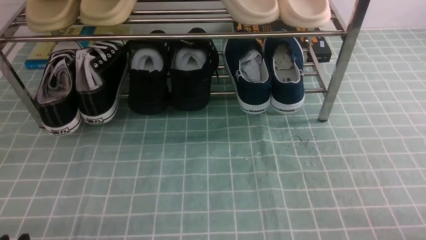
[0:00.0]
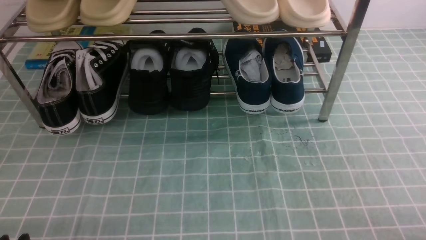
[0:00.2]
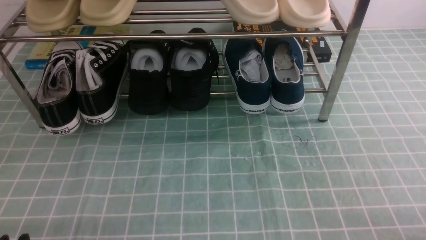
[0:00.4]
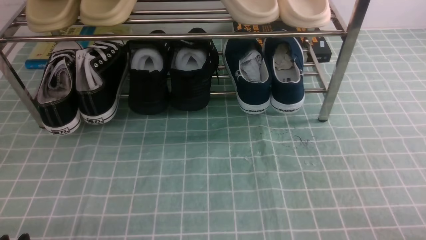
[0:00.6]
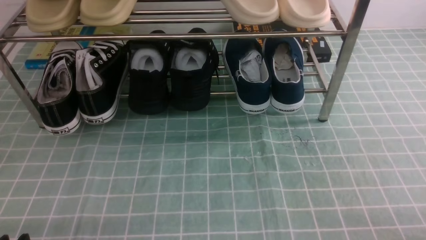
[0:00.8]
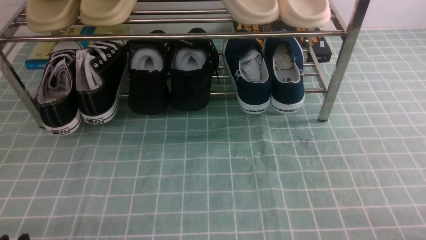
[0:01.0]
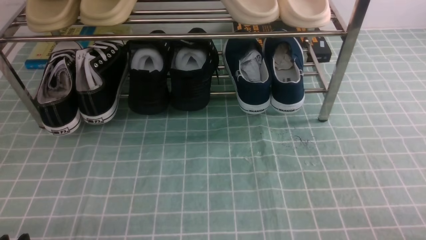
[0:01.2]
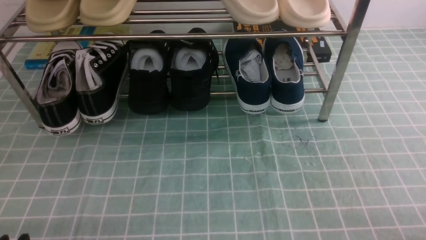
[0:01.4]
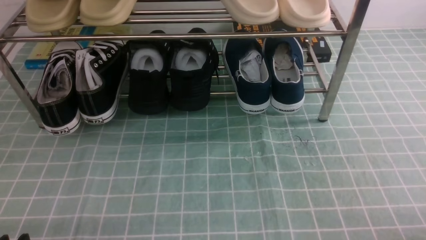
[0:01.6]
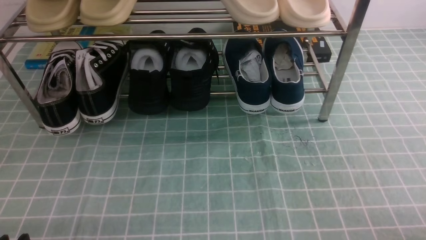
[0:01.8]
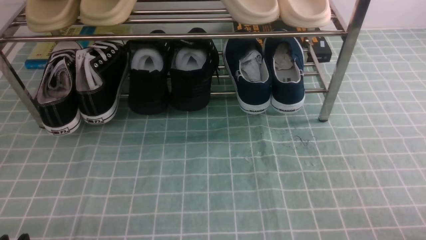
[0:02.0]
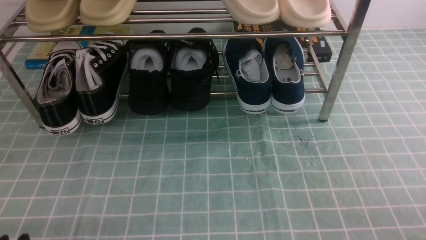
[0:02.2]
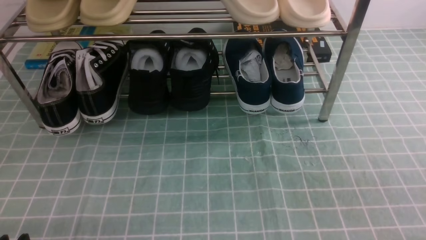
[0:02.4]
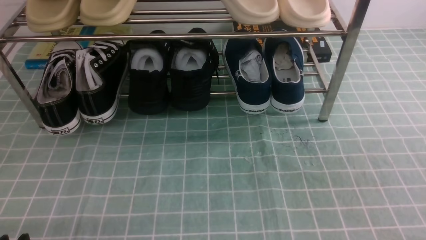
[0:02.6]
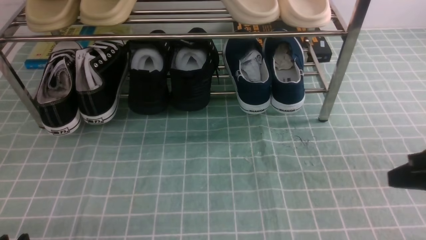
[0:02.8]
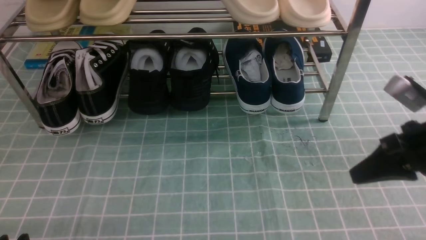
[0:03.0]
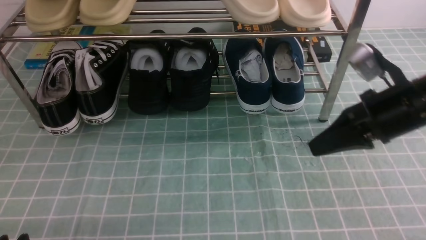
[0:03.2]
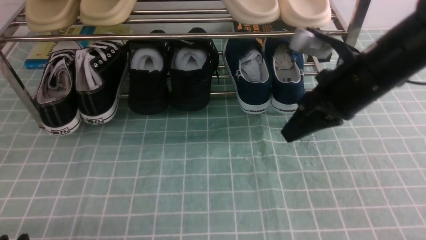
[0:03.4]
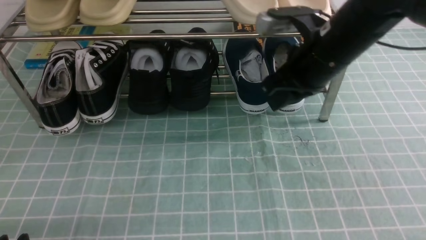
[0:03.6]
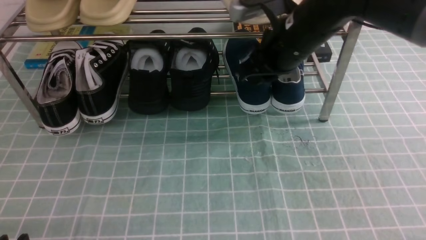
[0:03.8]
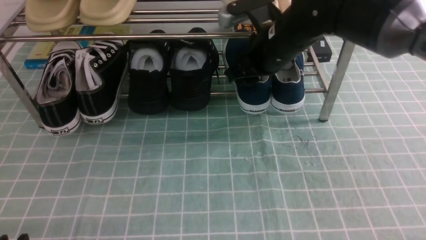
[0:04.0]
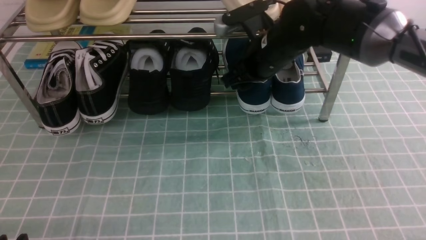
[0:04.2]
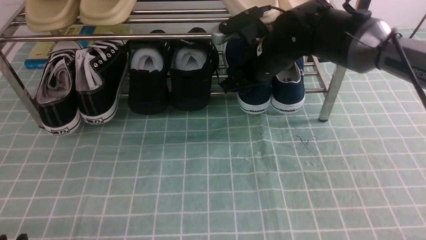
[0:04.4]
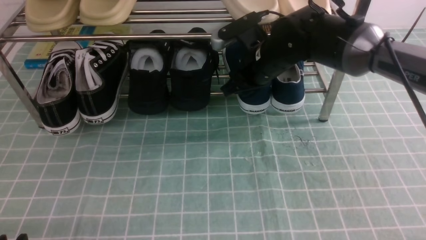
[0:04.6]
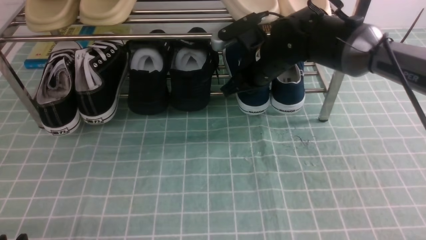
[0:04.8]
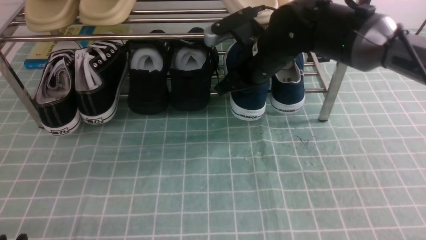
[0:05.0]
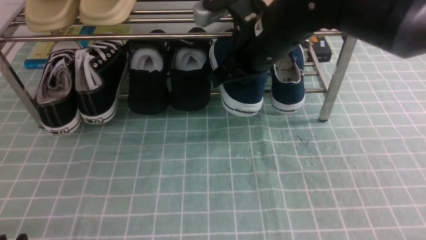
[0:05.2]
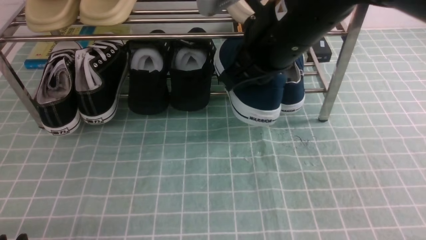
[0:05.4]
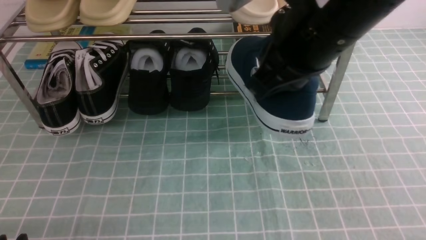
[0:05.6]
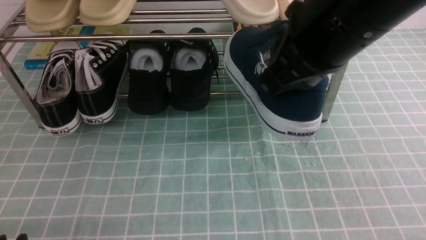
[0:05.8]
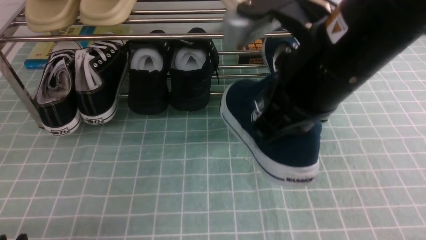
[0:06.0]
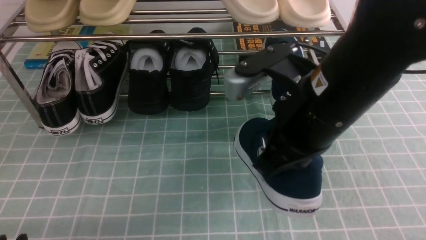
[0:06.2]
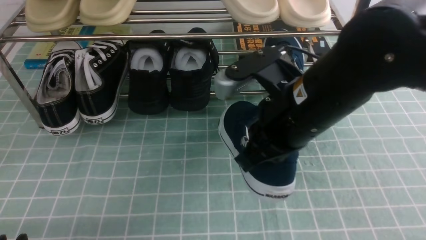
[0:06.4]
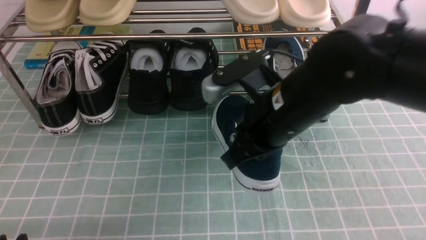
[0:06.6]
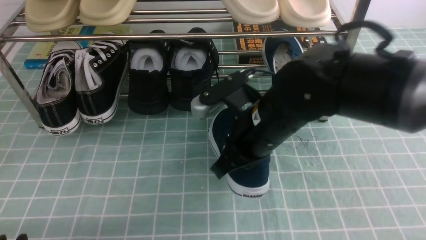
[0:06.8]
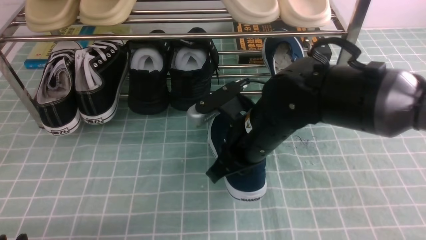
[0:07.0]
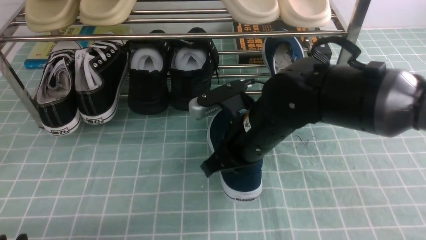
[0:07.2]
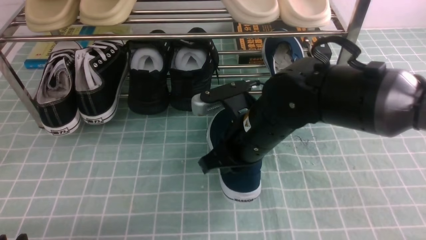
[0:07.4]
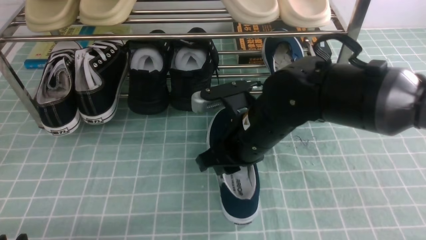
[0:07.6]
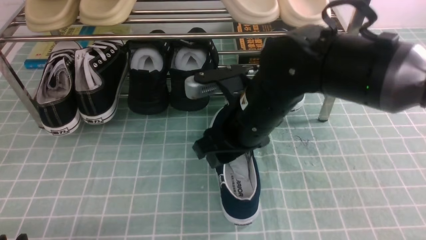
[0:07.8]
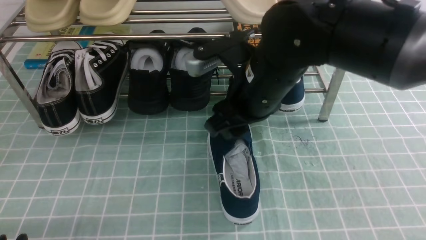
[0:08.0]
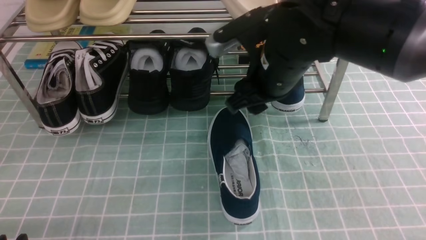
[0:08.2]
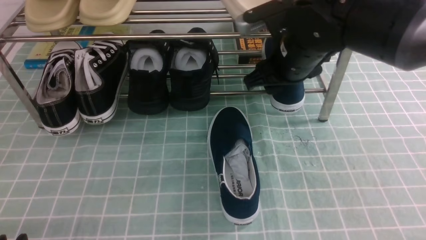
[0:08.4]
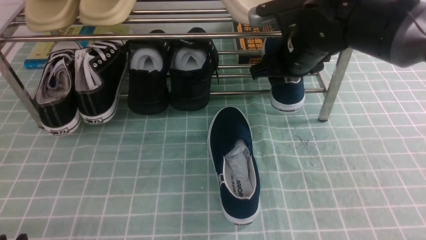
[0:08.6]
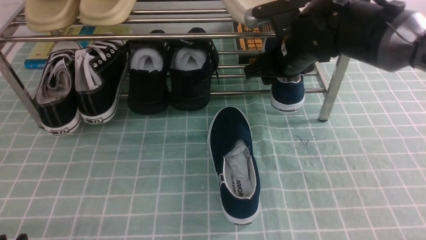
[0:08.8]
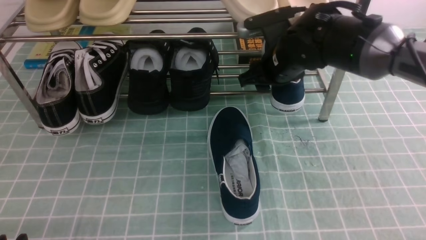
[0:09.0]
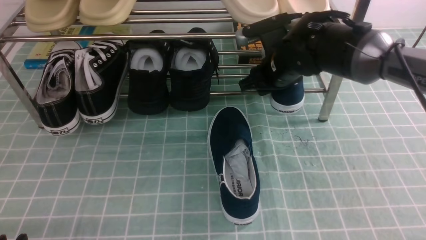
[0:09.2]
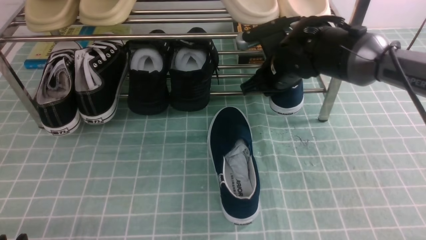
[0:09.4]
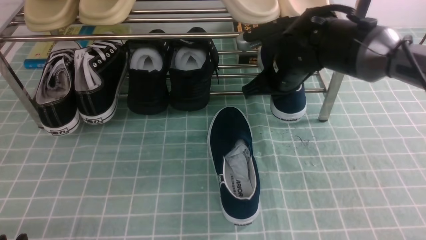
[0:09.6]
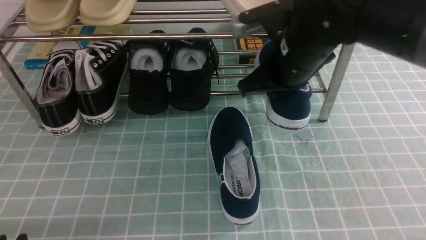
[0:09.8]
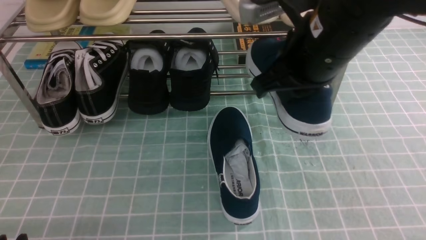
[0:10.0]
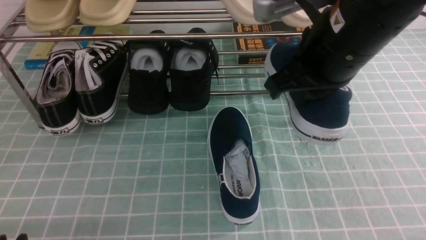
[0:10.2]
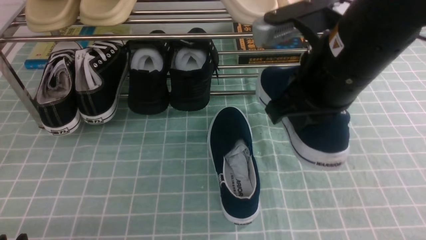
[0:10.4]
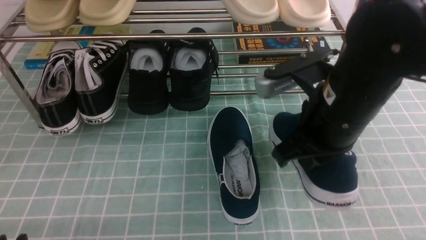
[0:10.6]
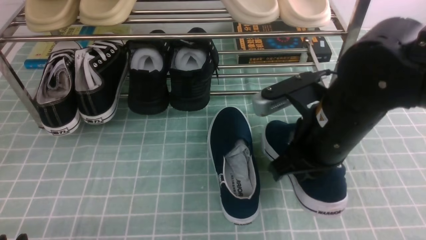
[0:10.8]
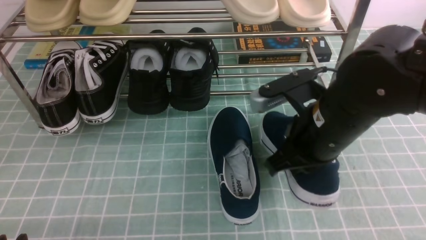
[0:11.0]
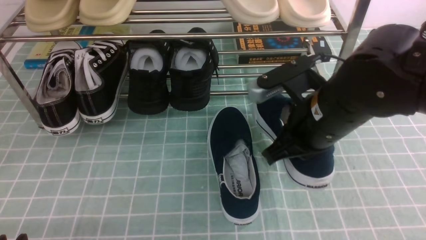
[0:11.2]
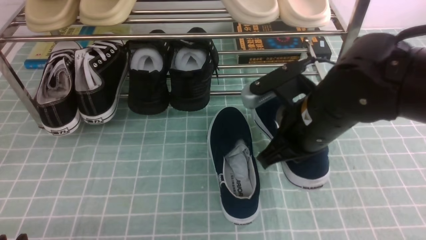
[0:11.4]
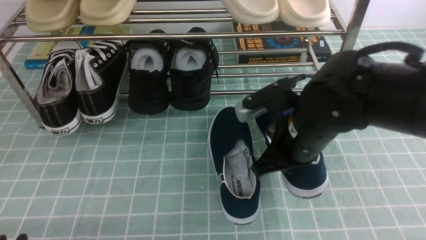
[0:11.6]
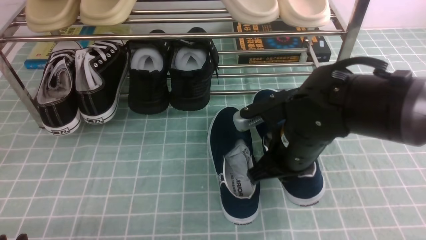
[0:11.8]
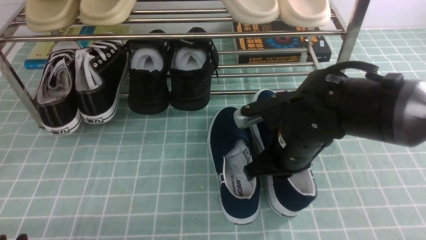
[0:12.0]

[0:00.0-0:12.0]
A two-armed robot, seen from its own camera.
Step, 0:00.0 to 0:04.6: use the right arm to clamp a shoe on the right side of the shoe rack.
Step, 0:04.8 to 0:07.8: use the right arm to take out the clamped shoe from the shoe rack and put it down.
Step, 0:08.0 to 0:09.4: use the right arm to clamp a shoe on the right side of the shoe rack.
0:01.6 to 0:03.0: The right gripper moves forward and upward, approximately 20 cm, and closes.
0:03.0 to 0:04.4: The right gripper goes roughly 25 cm to the left and forward, and opens.
0:04.4 to 0:06.0: The right gripper goes about 25 cm backward and upward, and closes up.
0:06.0 to 0:07.6: The right gripper moves downward, forward and to the left, some 15 cm, and opens its fingers.
0:07.6 to 0:09.0: The right gripper moves forward and to the right, about 15 cm.
0:09.0 to 0:10.4: The right gripper is displaced backward and upward by approximately 20 cm, and closes up.
0:10.4 to 0:12.0: The right gripper travels downward by approximately 15 cm.

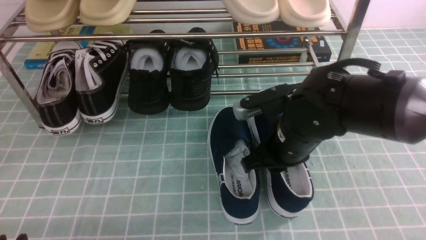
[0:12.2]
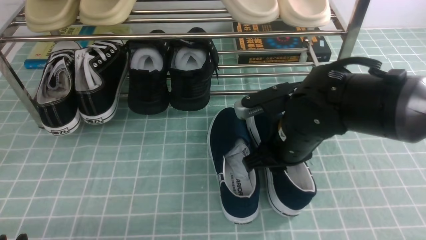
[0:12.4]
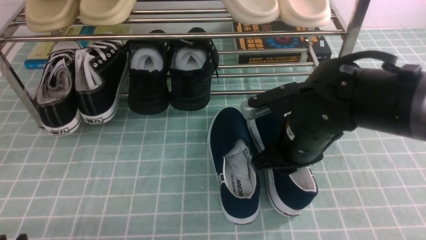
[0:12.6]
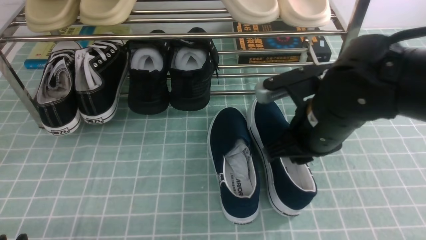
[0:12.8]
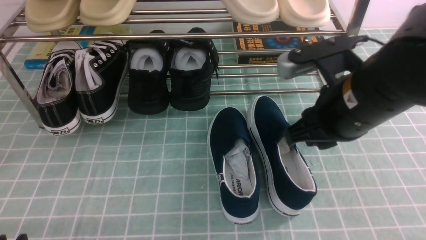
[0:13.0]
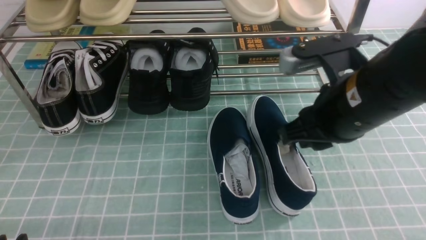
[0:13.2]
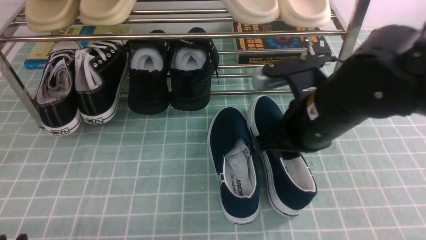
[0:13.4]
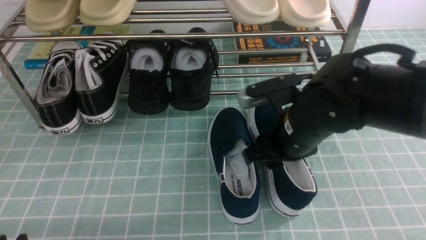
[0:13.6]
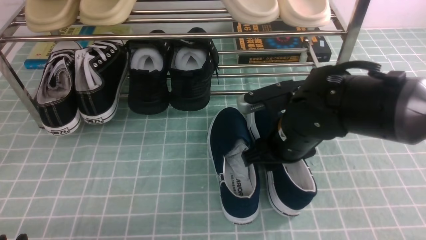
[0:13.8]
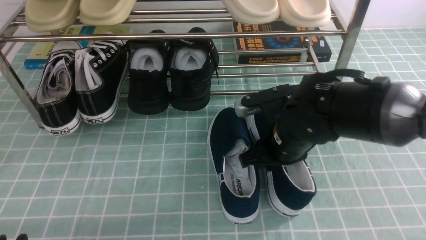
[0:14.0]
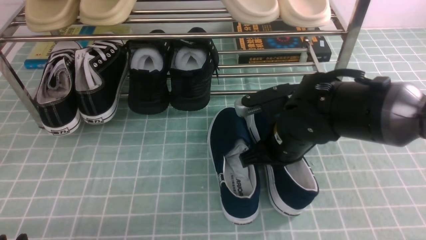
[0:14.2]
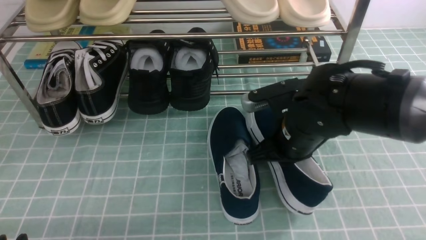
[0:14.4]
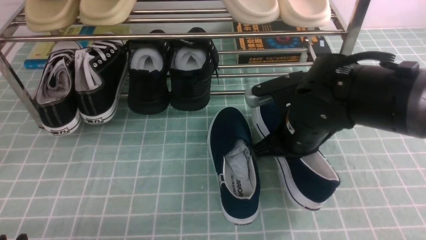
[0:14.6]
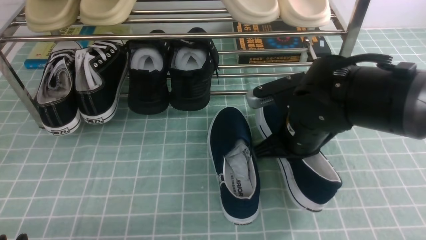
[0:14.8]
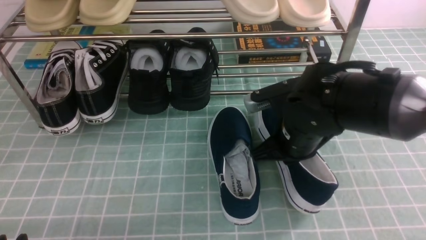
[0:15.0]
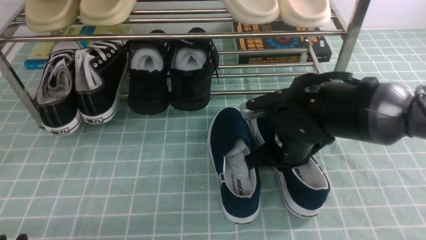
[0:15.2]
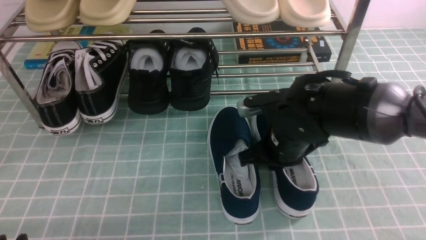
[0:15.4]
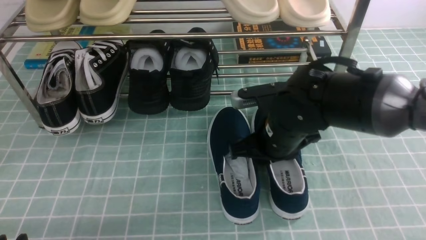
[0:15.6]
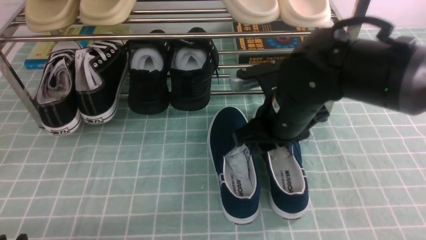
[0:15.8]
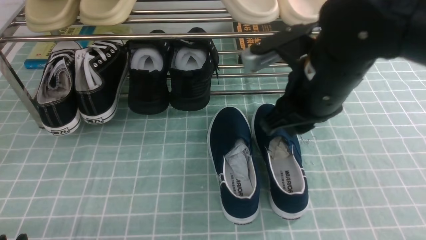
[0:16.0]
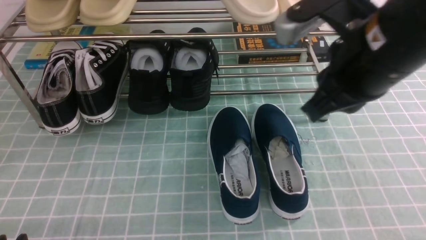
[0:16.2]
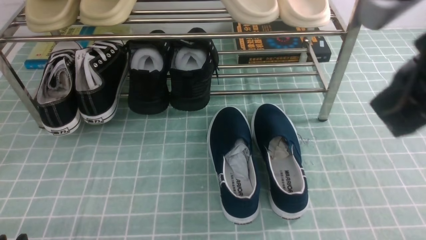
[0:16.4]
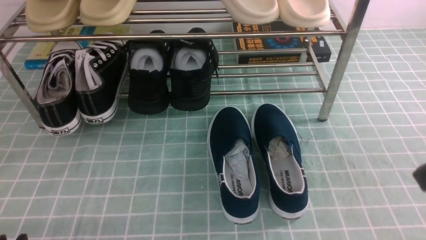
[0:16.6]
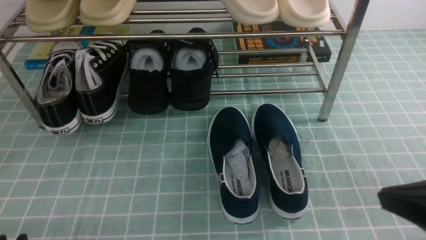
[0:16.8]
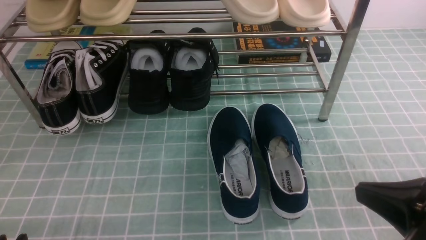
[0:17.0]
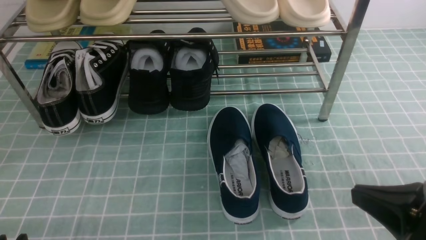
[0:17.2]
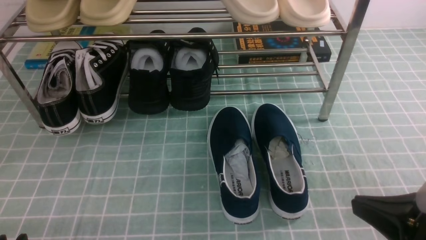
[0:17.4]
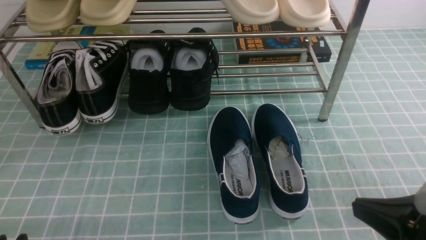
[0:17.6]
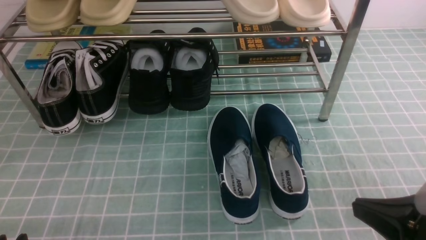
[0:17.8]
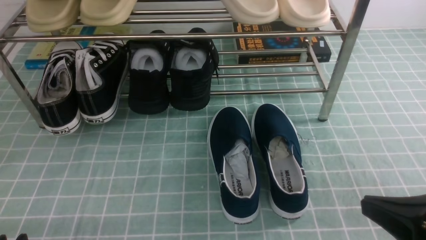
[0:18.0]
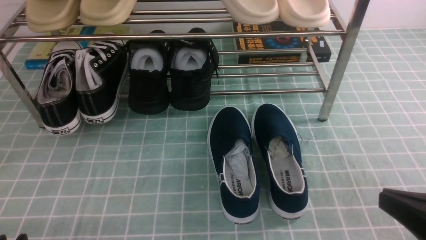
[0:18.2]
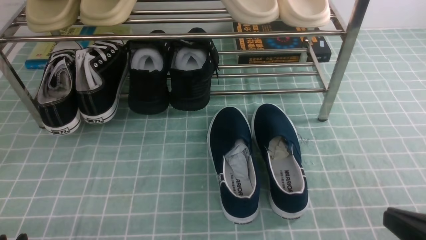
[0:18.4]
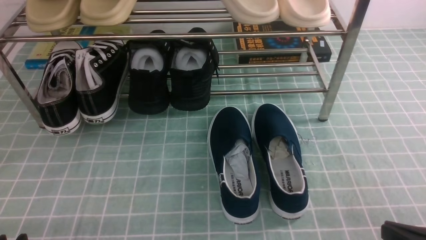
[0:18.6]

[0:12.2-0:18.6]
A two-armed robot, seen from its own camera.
Step, 0:12.2 to 0:15.8: use the right arm to take out the clamped shoe from the shoe rack and put it down.
0:12.2 to 0:13.8: The right gripper moves approximately 10 cm upward and comes back.
0:13.8 to 0:15.4: The right gripper closes up.
0:15.4 to 0:17.0: The right gripper is displaced backward and to the right by roughly 25 cm.
0:17.0 to 0:18.6: The right gripper travels downward by roughly 5 cm.
